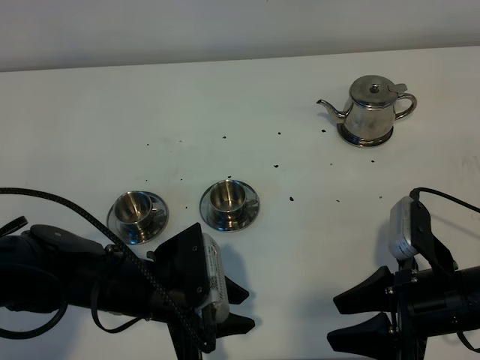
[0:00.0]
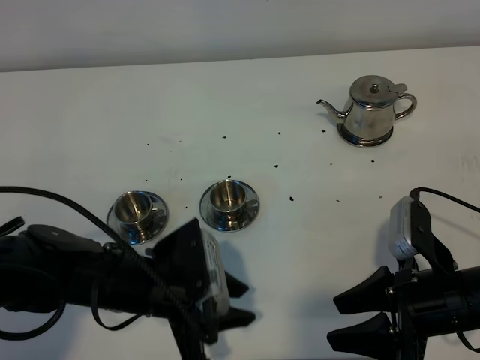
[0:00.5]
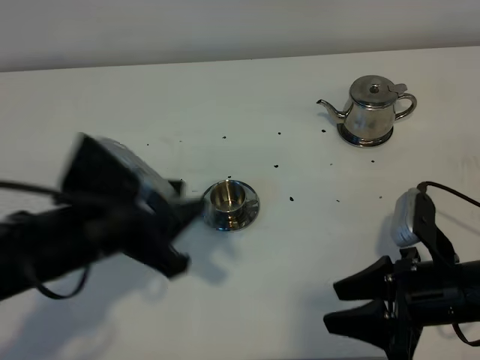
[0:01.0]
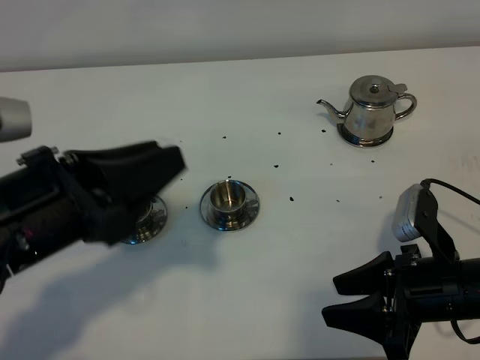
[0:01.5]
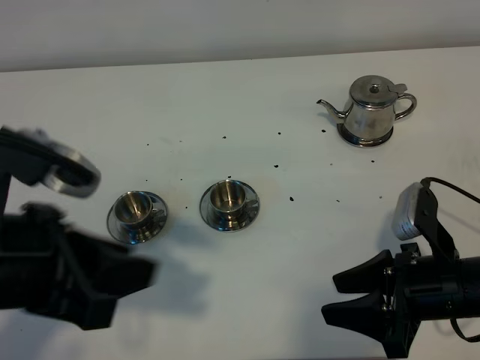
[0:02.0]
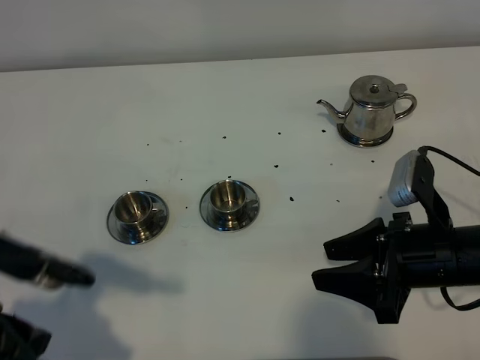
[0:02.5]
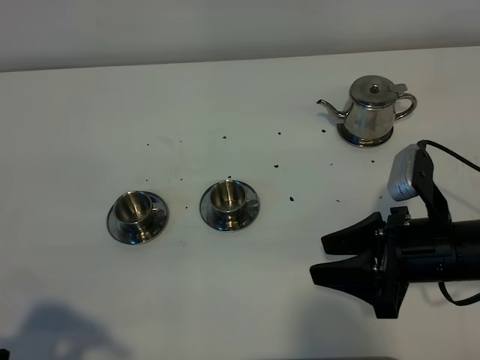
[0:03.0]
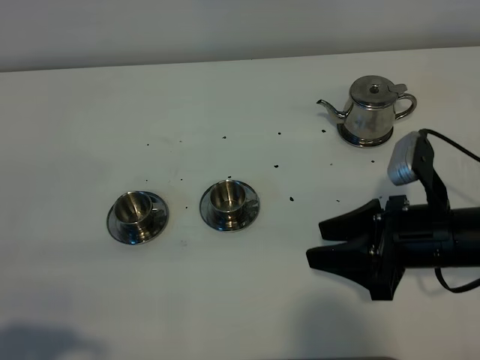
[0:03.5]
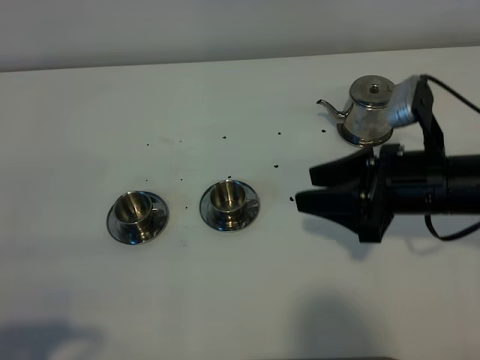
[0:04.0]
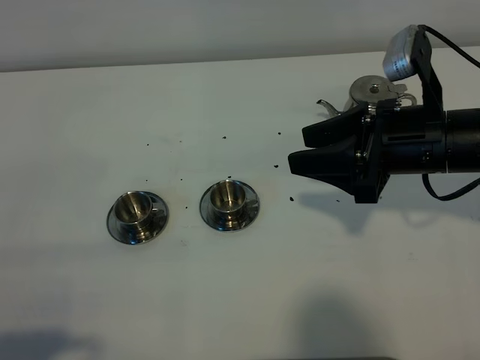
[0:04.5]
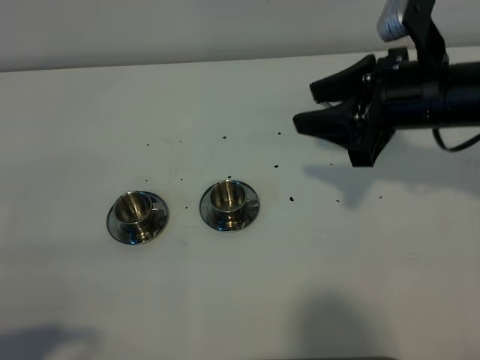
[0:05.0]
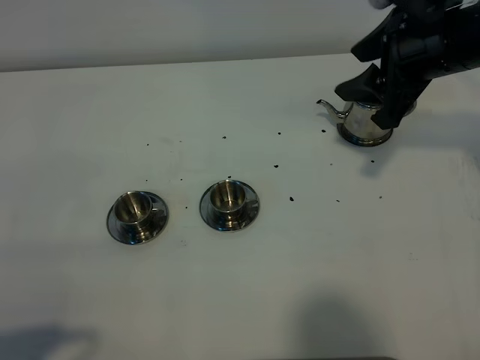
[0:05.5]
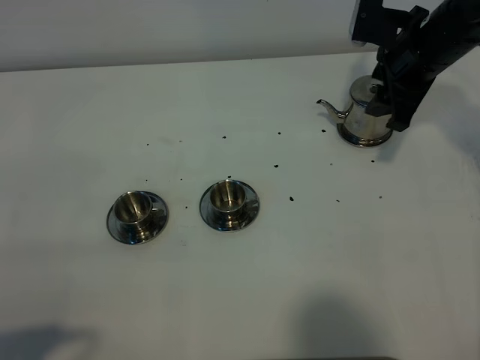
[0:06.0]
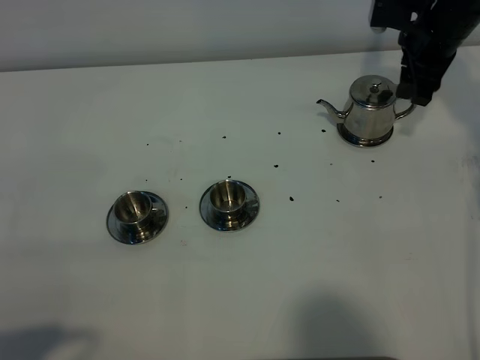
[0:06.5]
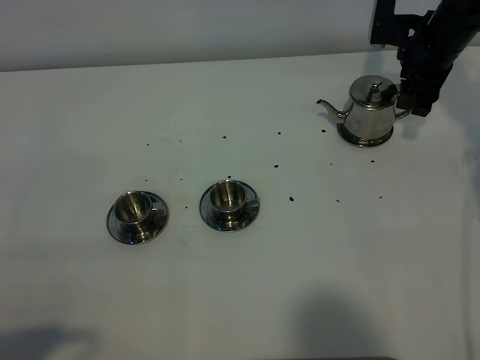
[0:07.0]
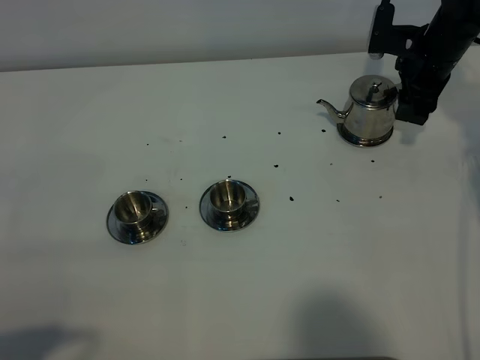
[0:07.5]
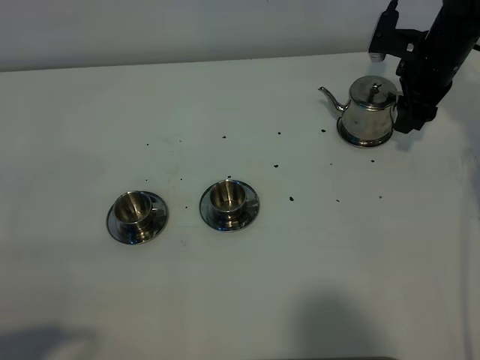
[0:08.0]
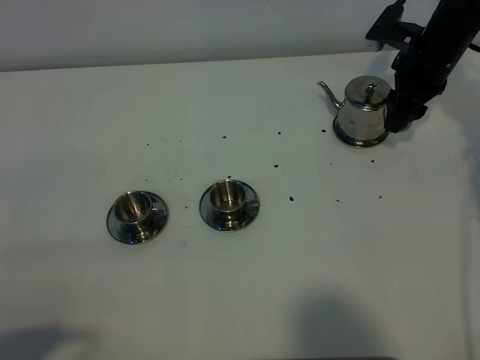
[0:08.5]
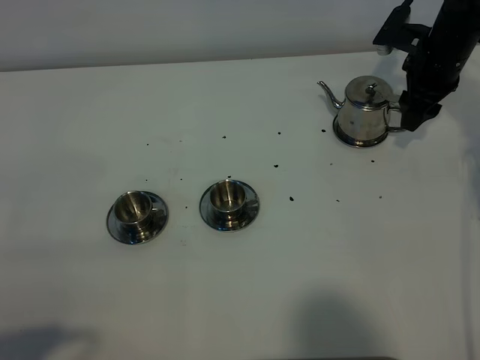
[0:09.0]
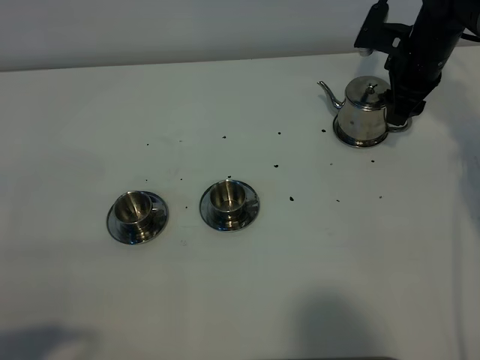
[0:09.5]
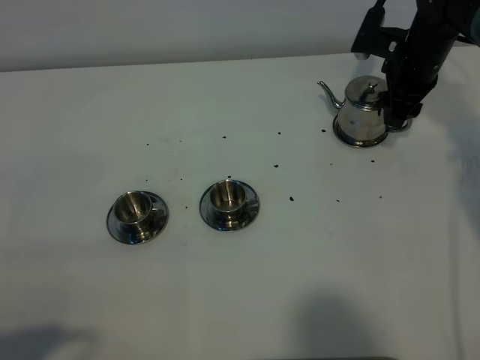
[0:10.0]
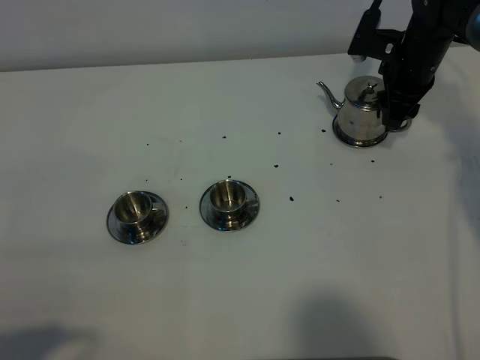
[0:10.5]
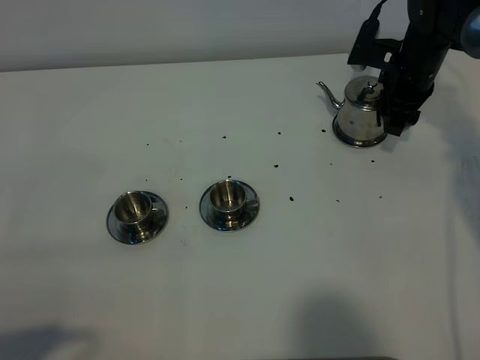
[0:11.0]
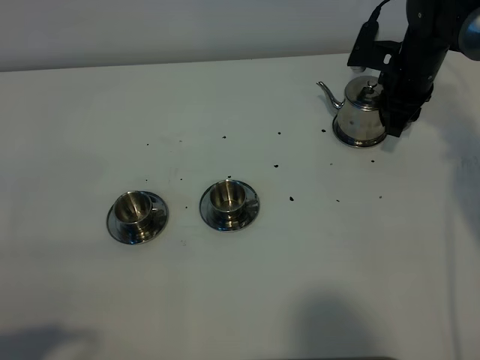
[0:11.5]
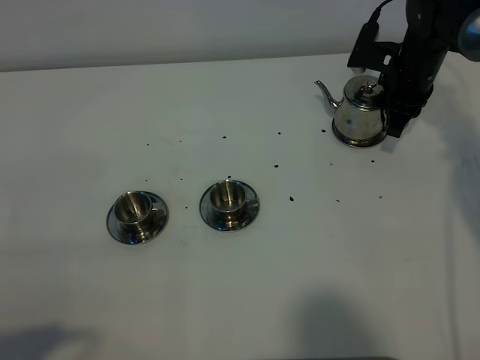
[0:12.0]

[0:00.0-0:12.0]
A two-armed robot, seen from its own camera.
Task of the whole recording: grasp the stainless steel teapot and pour the tea into the two stainless steel teacups one by one, put the stainless steel teapot back in its original place.
0:00.0 to 0:02.0: The left gripper shifts approximately 20 cm upward.
0:02.0 to 0:04.0: The left gripper is displaced backward and to the left by approximately 15 cm; the right gripper heads forward and upward, covering about 10 cm.
0:04.0 to 0:06.0: The right gripper heads forward, covering some 15 cm.
0:06.0 to 0:08.0: The right gripper heads downward and forward, covering approximately 10 cm.
0:08.0 to 0:10.0: The grippers make only small movements.
0:10.0 to 0:12.0: The right gripper closes.

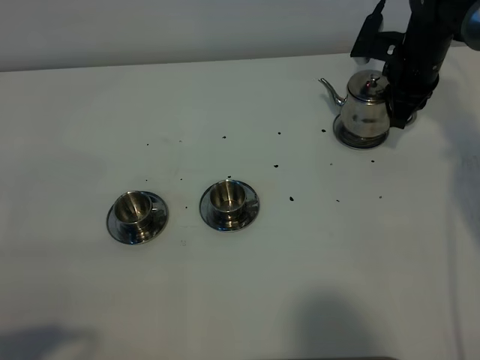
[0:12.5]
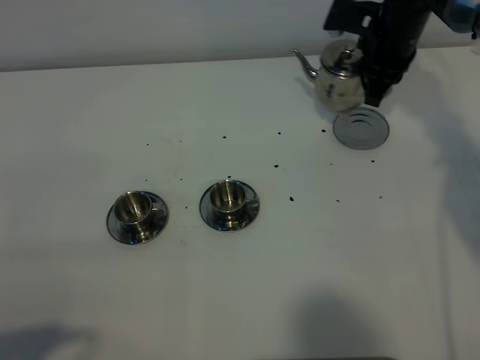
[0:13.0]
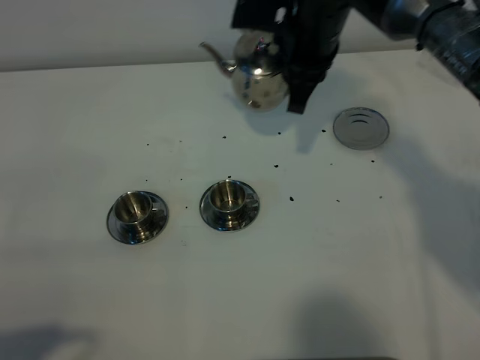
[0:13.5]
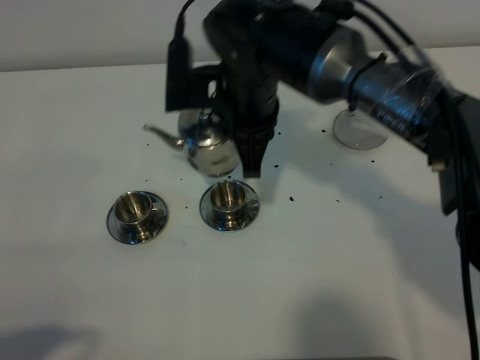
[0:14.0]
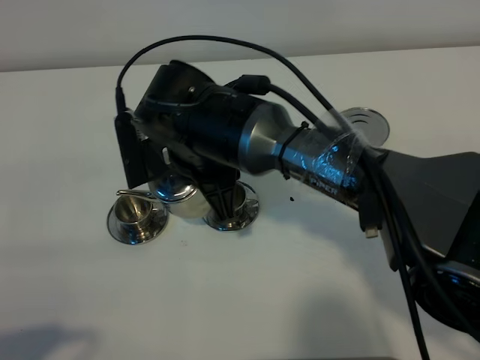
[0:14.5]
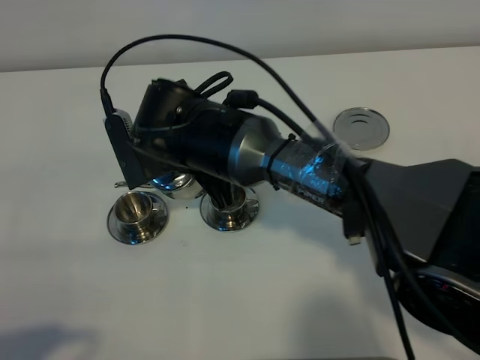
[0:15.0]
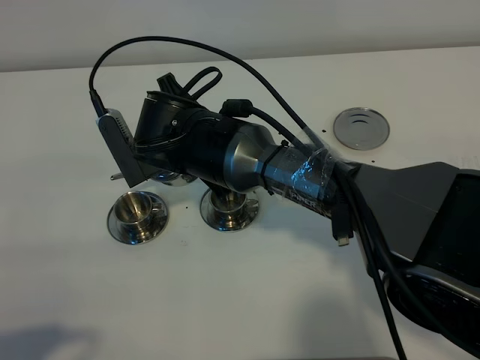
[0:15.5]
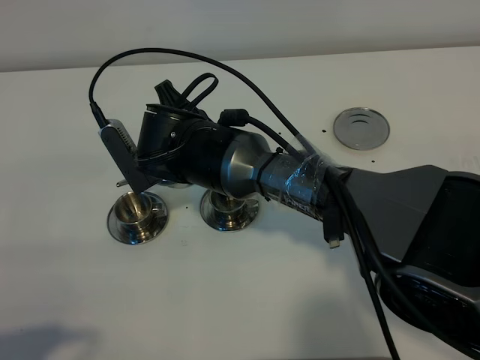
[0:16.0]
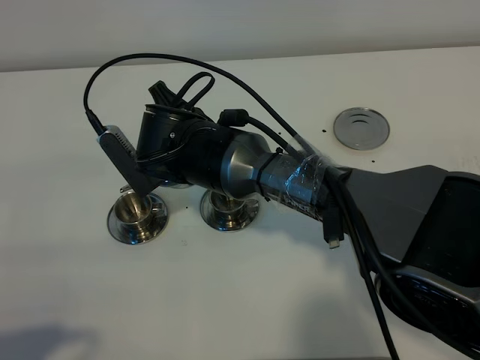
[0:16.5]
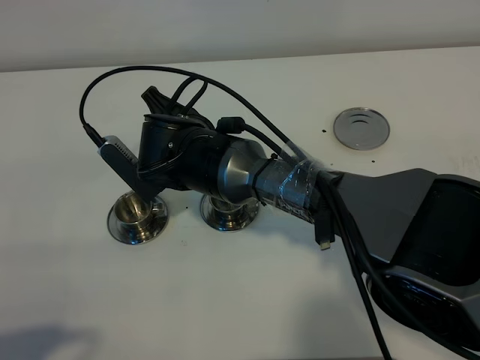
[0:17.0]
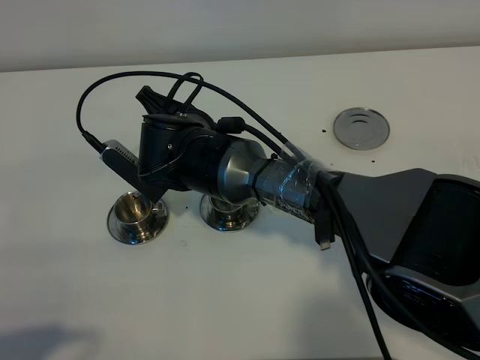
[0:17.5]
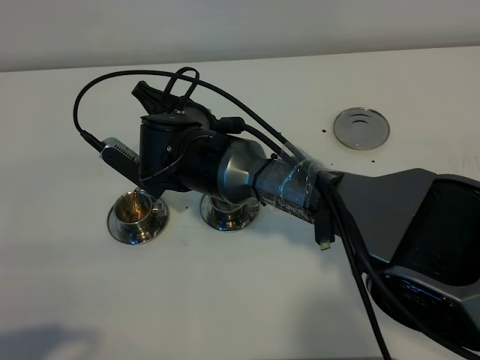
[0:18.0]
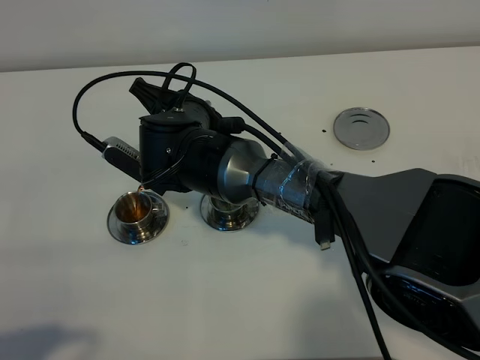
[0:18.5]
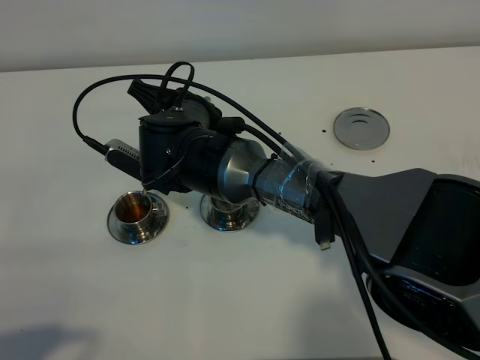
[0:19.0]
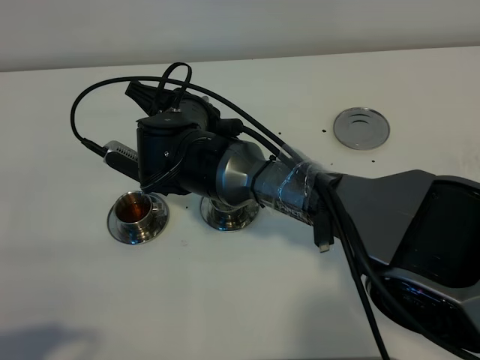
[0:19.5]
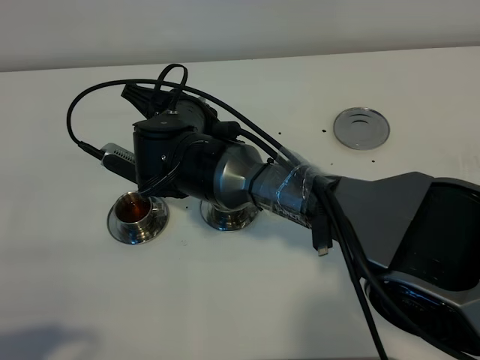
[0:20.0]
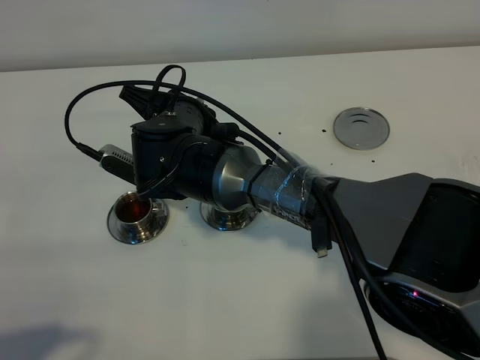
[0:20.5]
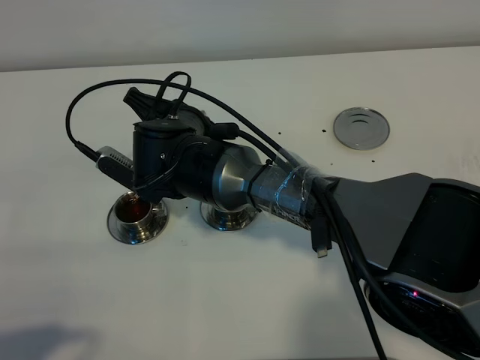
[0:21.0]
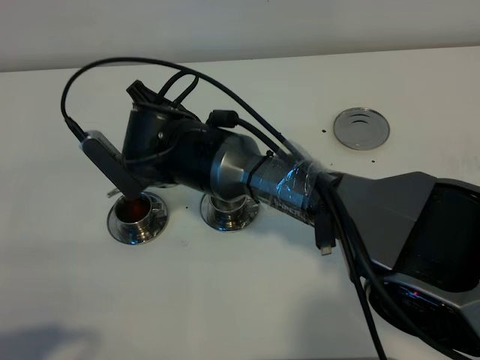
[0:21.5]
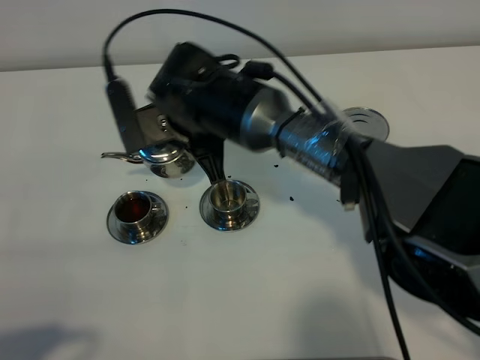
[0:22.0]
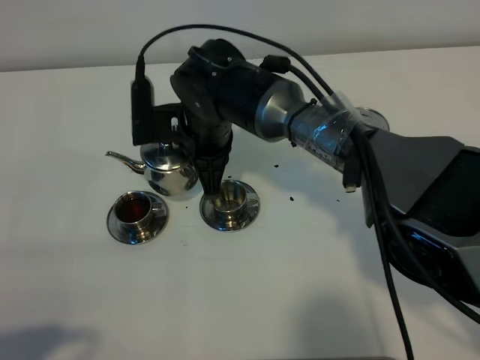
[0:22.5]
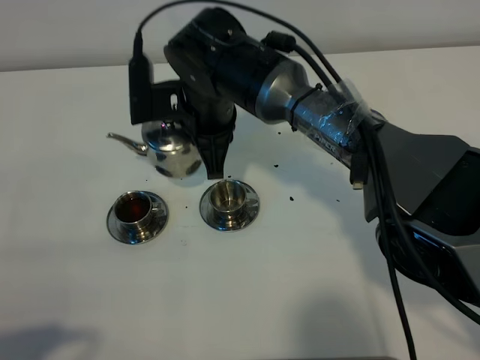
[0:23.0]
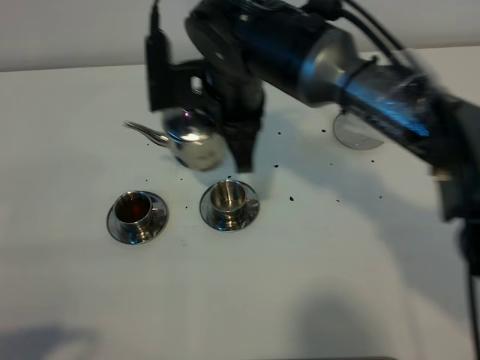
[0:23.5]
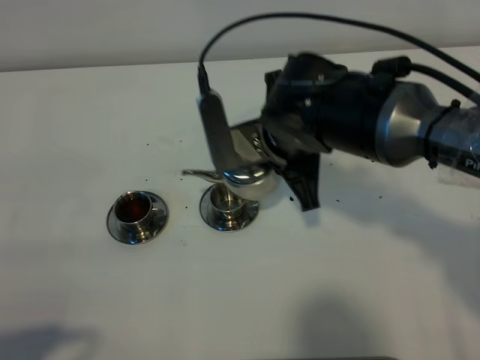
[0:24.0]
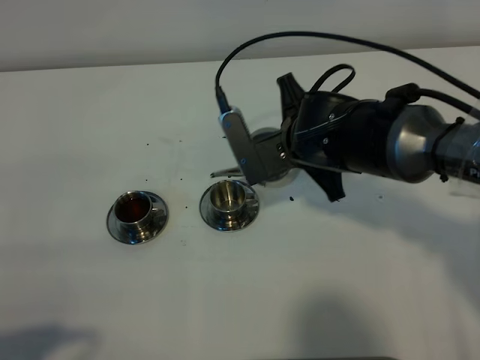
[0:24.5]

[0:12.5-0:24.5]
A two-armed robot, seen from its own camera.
Task of the whole recording: grasp the stainless steel teapot and pour the tea into the two stainless steel teacups one by one, put the stainless steel teapot back in its original place.
0:12.5 to 0:14.5: The right gripper is displaced to the left and backward by about 35 cm.
0:18.5 to 0:20.5: There are only small adjustments of the grippers.
0:22.5 to 0:24.5: The right gripper shifts about 10 cm to the right.

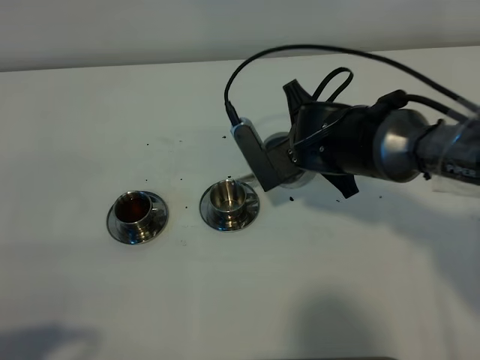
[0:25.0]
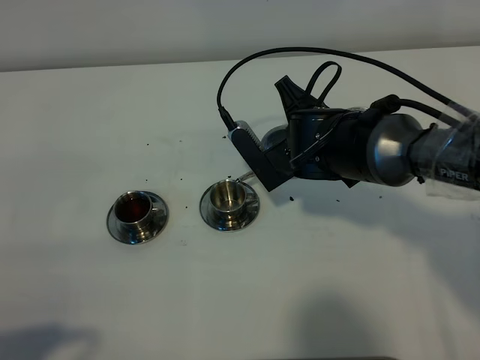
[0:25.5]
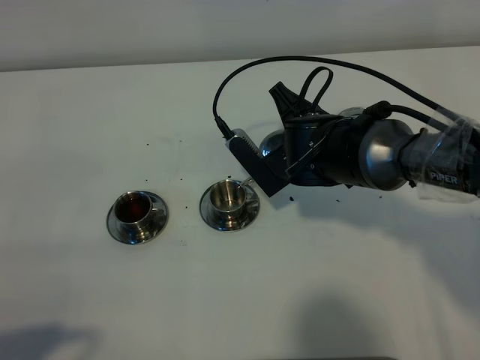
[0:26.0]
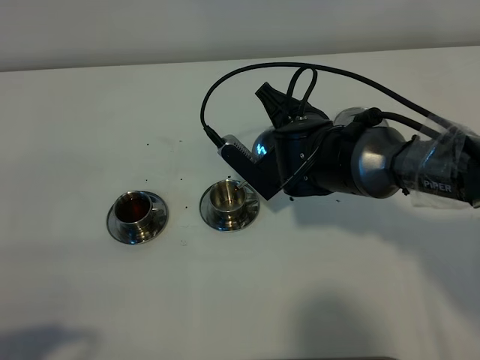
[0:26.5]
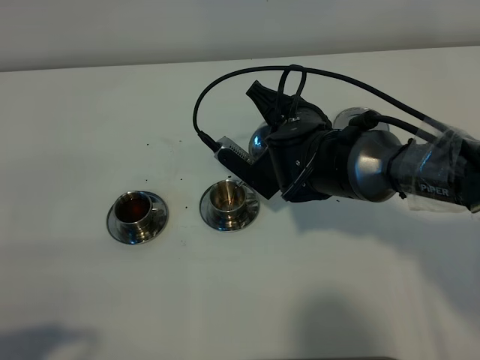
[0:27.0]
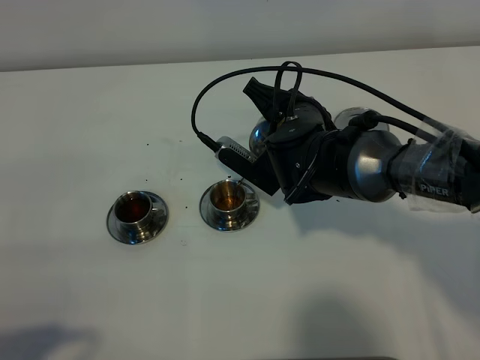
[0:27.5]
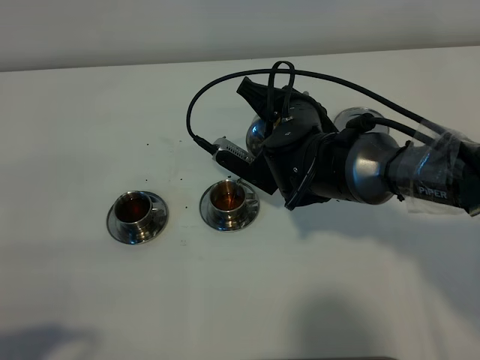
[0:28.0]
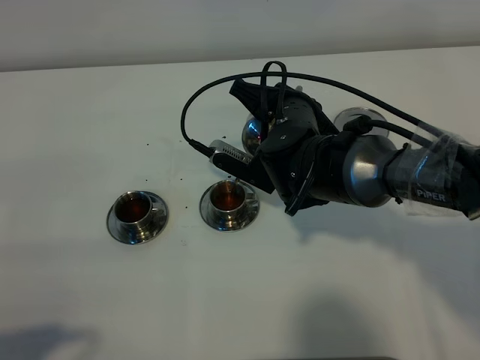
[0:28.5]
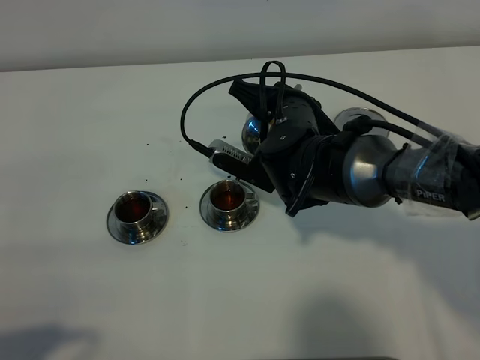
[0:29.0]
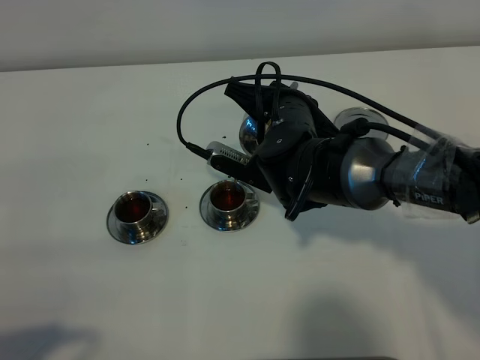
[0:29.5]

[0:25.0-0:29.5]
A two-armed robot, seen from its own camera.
Task of the whole recording: grasp the stainless steel teapot and pour the tea into the two stainless steel teacups one by one, put the stainless steel teapot back in its original place.
0:27.0 to 0:29.5: There are only small adjustments of the grippers.
